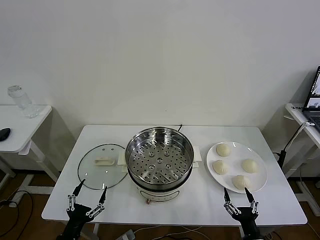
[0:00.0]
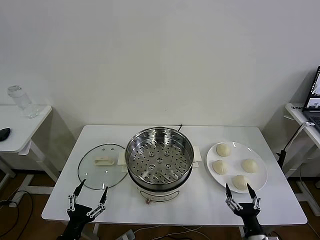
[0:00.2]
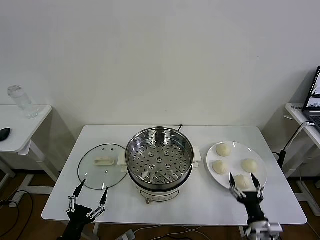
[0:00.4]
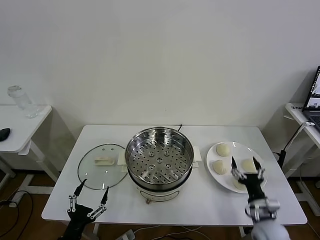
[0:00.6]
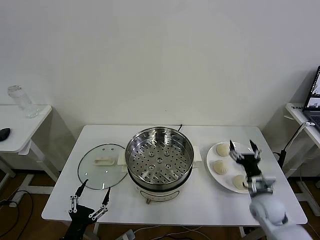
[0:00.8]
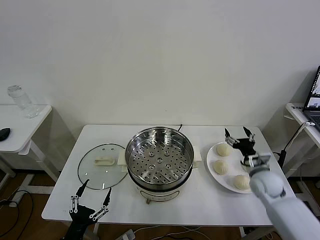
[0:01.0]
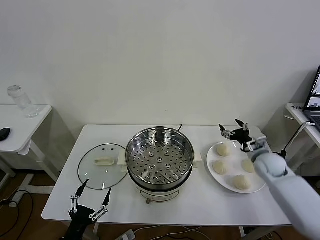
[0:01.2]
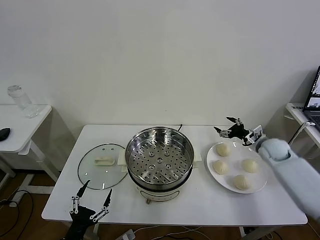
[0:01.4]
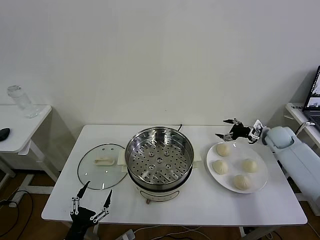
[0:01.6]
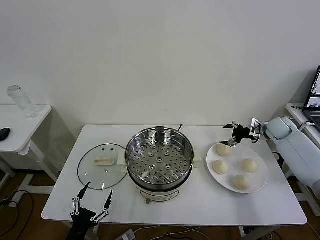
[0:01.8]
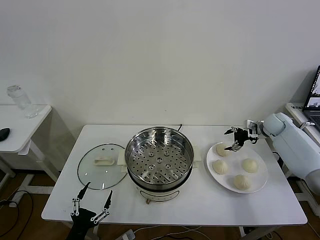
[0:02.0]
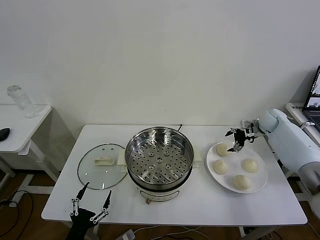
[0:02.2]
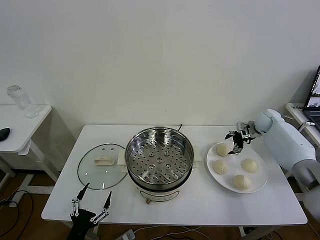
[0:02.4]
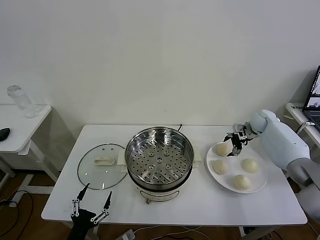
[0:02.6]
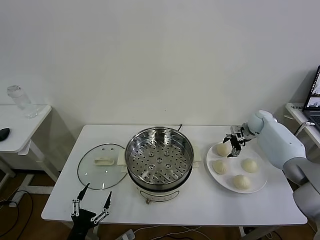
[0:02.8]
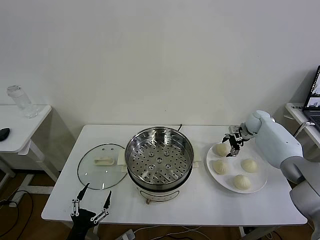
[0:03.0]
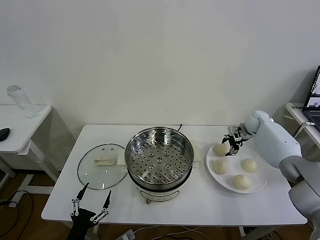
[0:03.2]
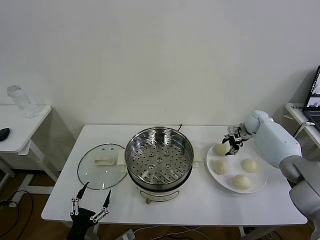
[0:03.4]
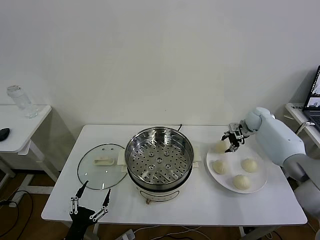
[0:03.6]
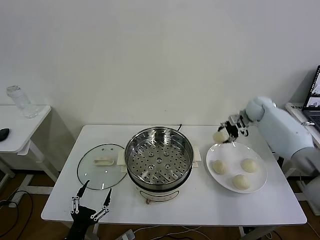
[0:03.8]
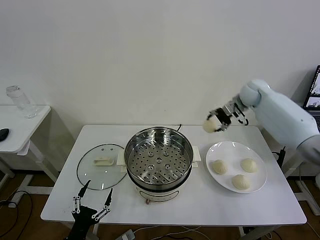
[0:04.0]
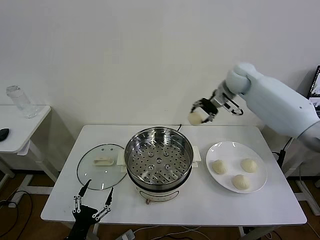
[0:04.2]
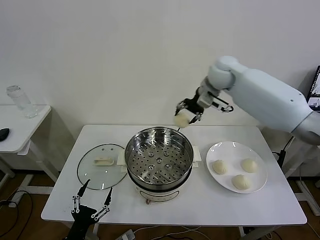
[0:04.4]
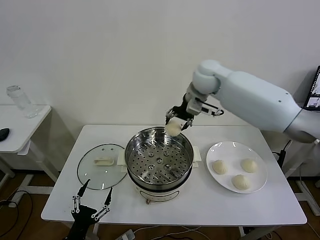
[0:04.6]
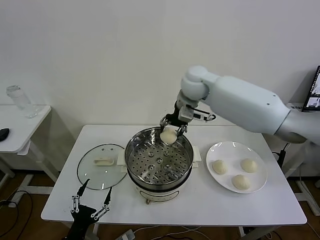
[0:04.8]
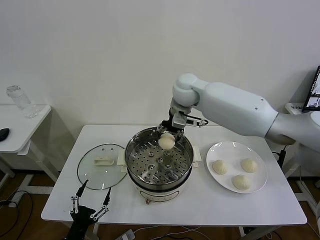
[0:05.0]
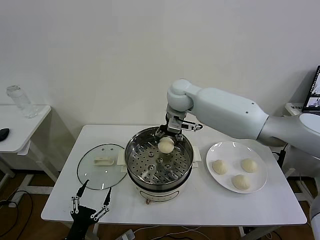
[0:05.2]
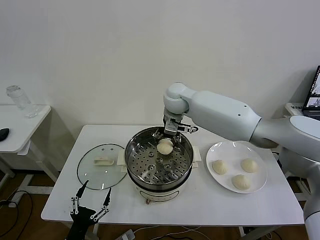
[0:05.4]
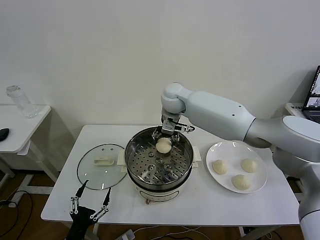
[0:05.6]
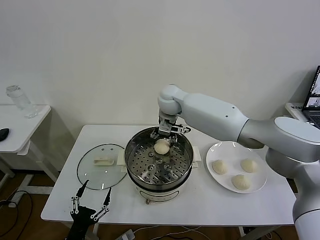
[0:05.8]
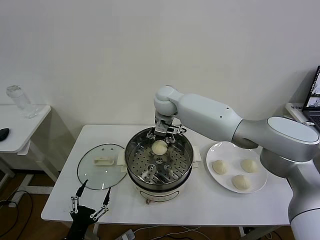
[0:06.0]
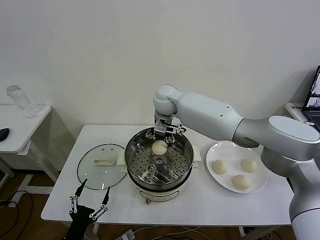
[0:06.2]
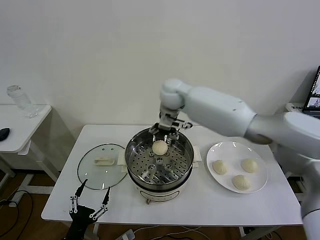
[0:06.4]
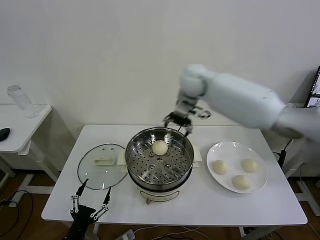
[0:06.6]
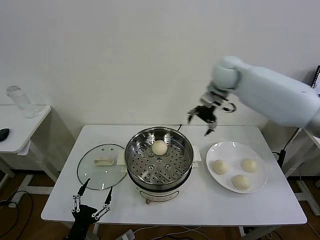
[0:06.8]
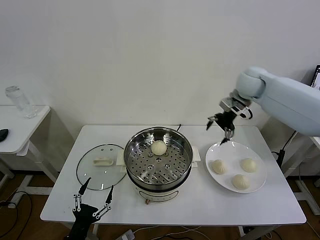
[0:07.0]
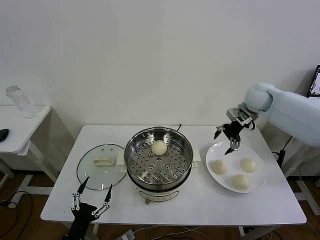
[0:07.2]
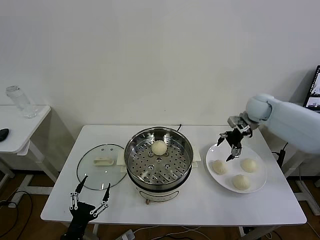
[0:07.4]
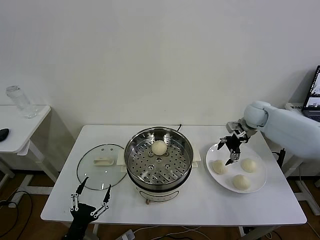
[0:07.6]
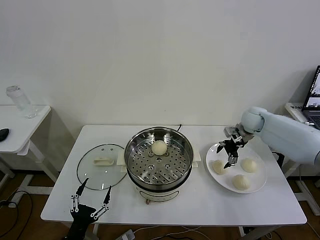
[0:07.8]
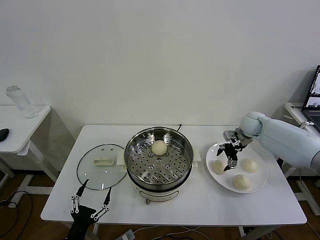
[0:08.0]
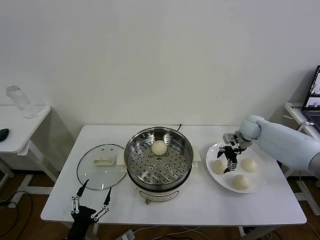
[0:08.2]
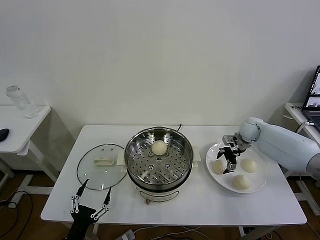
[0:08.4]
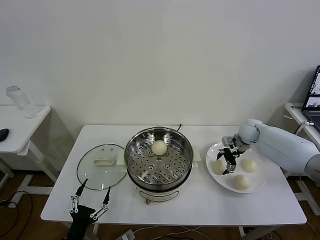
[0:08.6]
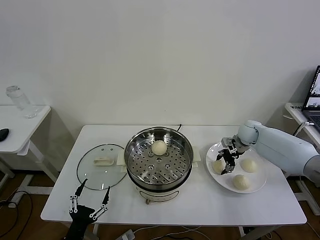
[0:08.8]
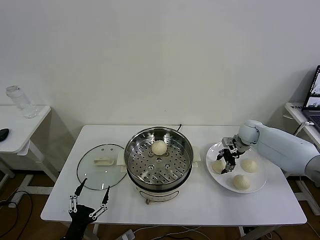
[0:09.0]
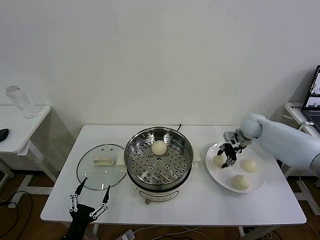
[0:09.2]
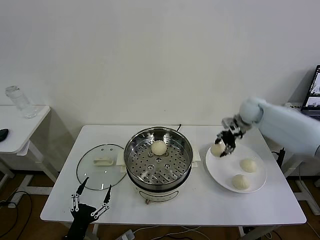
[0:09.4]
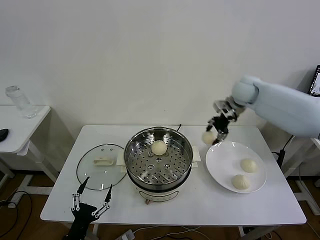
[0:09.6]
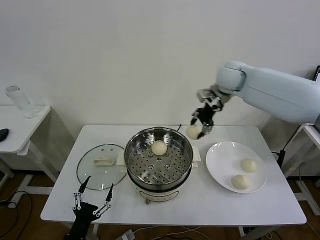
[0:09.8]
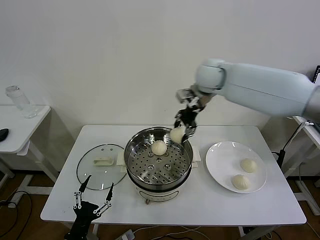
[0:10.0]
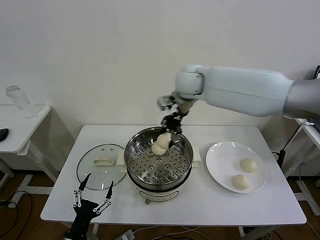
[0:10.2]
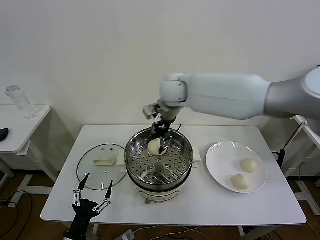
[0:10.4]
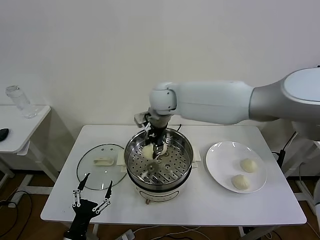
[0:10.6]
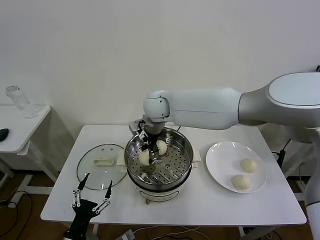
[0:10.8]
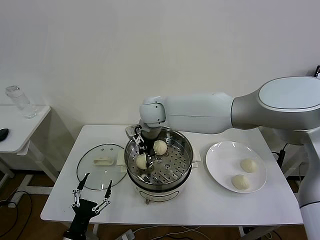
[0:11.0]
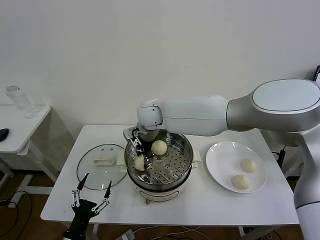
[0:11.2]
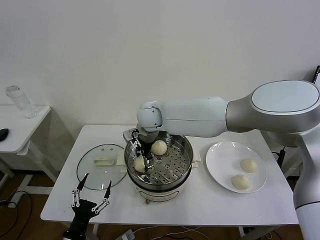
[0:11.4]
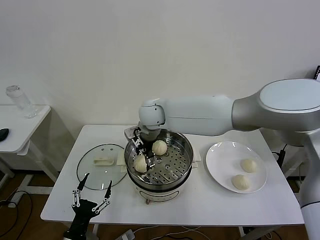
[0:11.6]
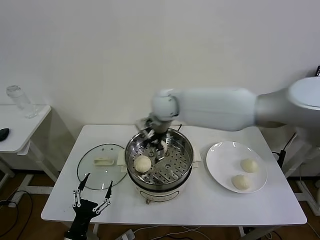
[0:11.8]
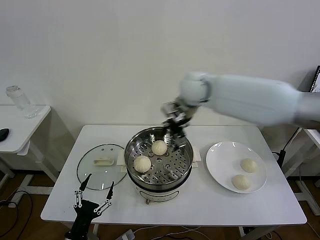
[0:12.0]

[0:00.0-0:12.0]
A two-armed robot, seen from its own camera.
Task of the whole recording: take steamed baozi put them in steamer then cover it.
Step, 0:00.0 to 0:03.4: Grasp the baozi in the plate with right gripper.
Step, 0:03.6 to 0:06.4: Place the baozi on the steamer with right gripper.
Step, 0:06.6 to 0:08.8: Grasp the baozi in the plate with right gripper.
0:01.6 to 0:03.0: The right gripper is displaced forward and to the left by approximately 10 cm.
0:03.0 to 0:04.4: The right gripper heads to the left and upward, covering approximately 35 cm.
0:04.4 to 0:06.0: The right gripper shifts approximately 15 cm to the left and downward, and opens its fingers.
0:06.0 to 0:07.6: The right gripper heads to the right, covering some 35 cm.
0:07.6 to 0:09.0: The right gripper shifts about 5 cm downward, and closes its fingers.
0:09.0 to 0:10.4: The right gripper moves to the left and upward, some 40 cm.
0:10.4 to 0:12.0: The right gripper shifts approximately 15 cm to the right, and opens.

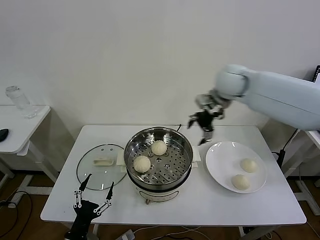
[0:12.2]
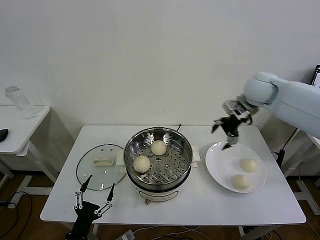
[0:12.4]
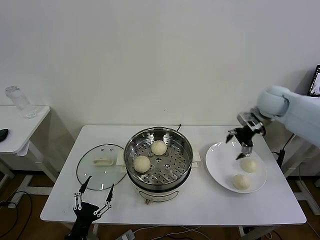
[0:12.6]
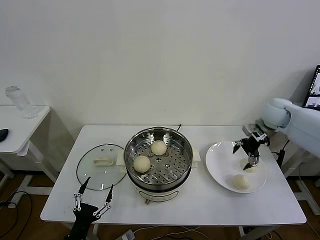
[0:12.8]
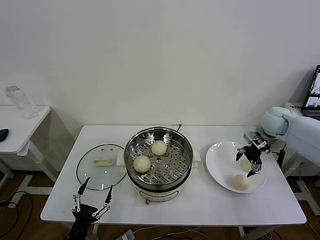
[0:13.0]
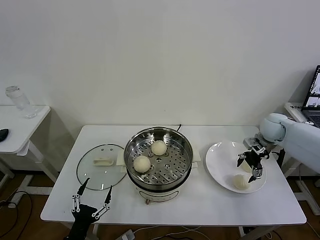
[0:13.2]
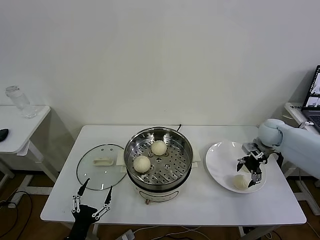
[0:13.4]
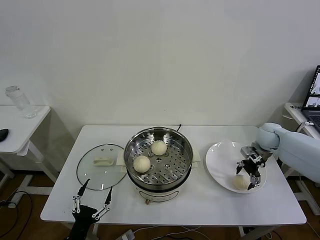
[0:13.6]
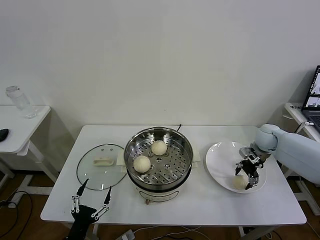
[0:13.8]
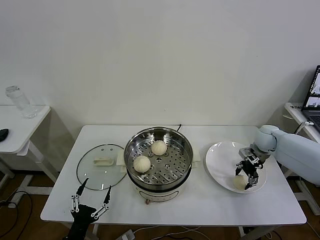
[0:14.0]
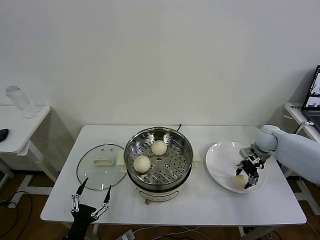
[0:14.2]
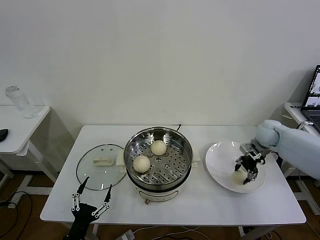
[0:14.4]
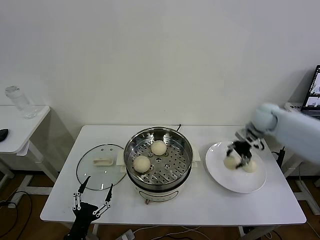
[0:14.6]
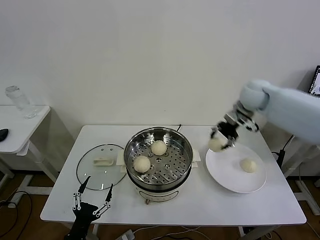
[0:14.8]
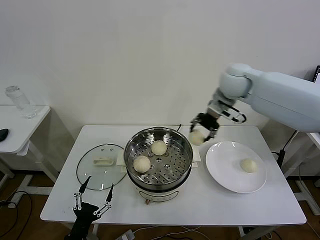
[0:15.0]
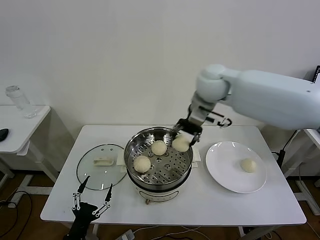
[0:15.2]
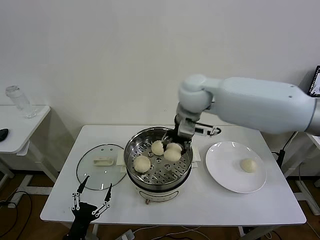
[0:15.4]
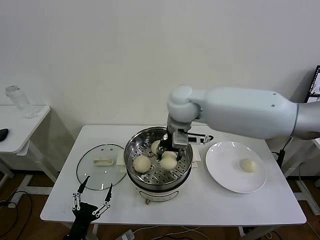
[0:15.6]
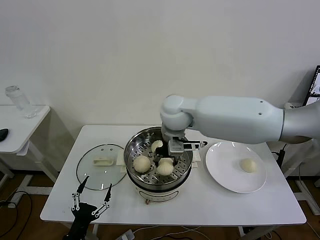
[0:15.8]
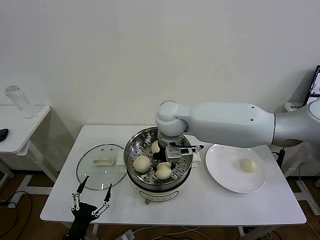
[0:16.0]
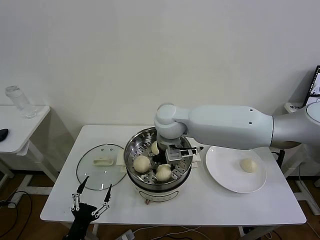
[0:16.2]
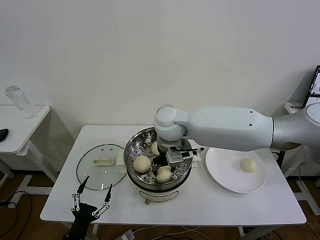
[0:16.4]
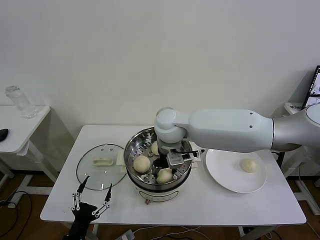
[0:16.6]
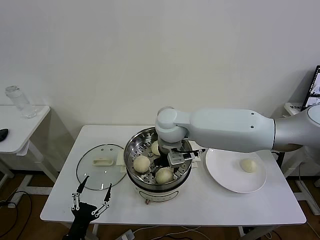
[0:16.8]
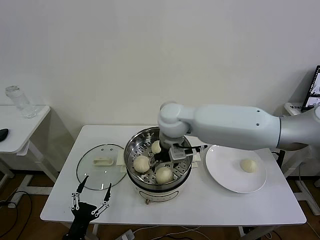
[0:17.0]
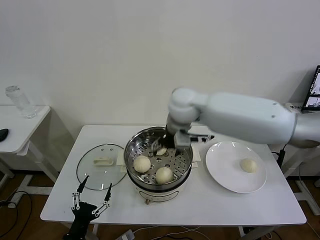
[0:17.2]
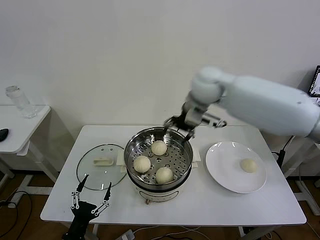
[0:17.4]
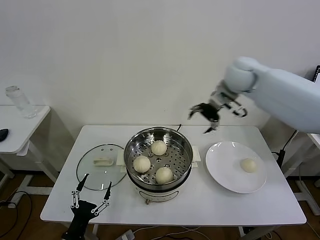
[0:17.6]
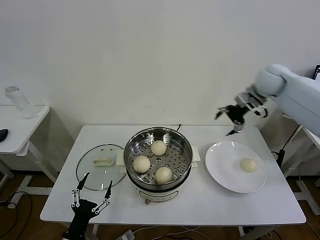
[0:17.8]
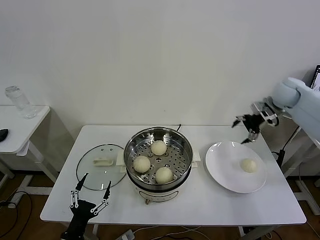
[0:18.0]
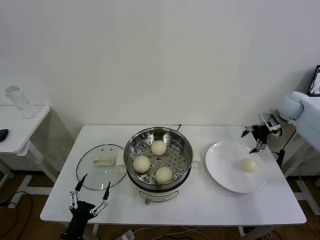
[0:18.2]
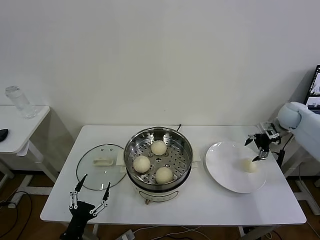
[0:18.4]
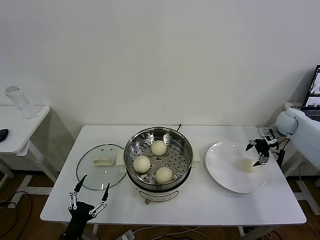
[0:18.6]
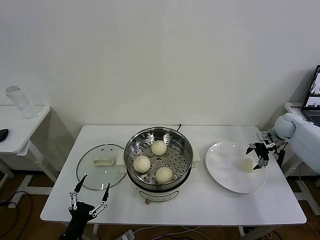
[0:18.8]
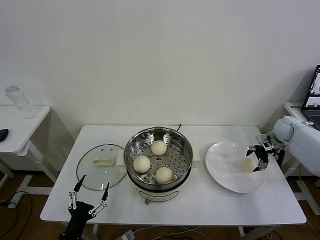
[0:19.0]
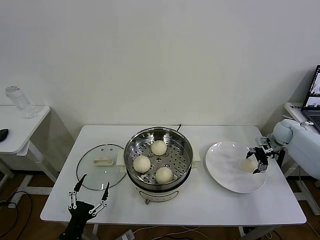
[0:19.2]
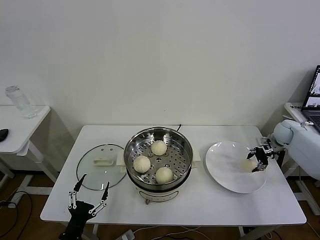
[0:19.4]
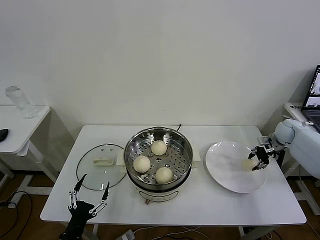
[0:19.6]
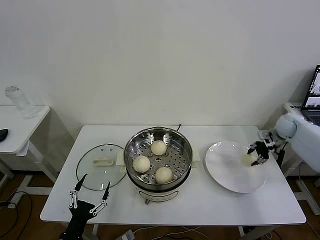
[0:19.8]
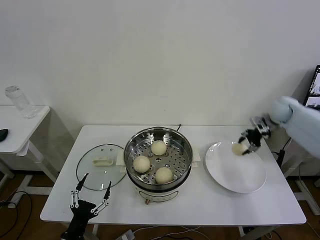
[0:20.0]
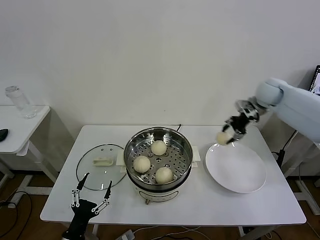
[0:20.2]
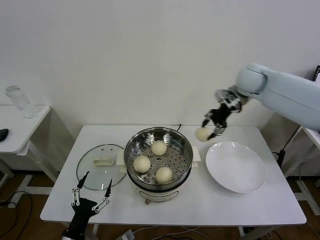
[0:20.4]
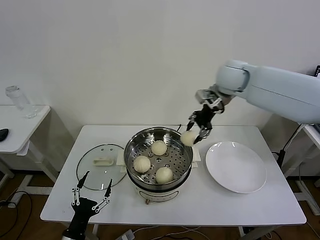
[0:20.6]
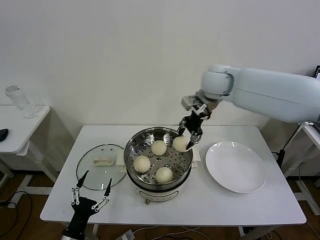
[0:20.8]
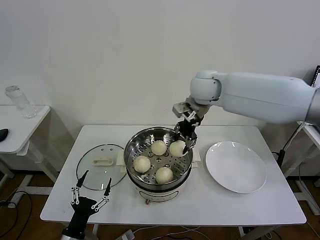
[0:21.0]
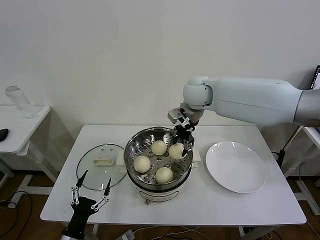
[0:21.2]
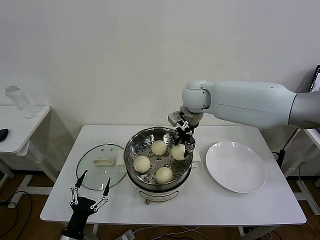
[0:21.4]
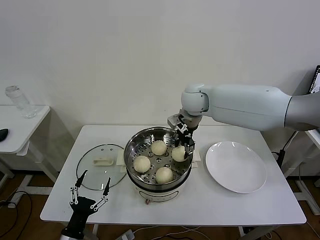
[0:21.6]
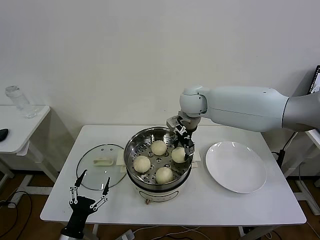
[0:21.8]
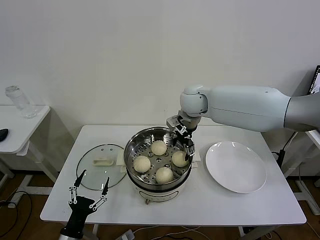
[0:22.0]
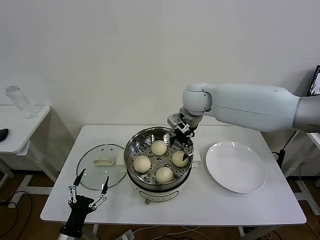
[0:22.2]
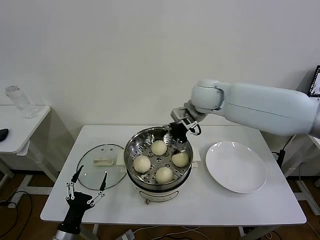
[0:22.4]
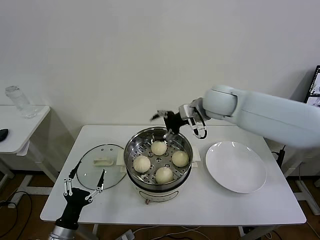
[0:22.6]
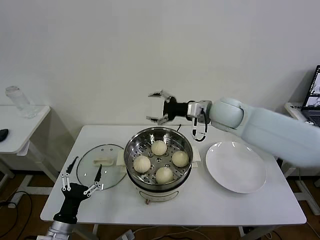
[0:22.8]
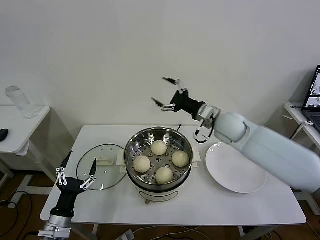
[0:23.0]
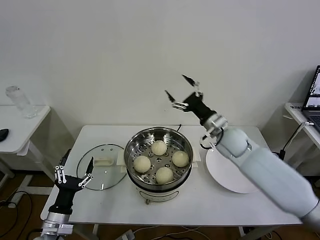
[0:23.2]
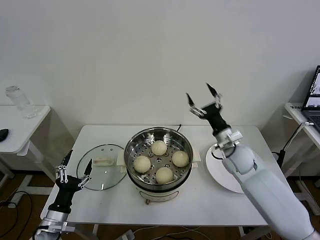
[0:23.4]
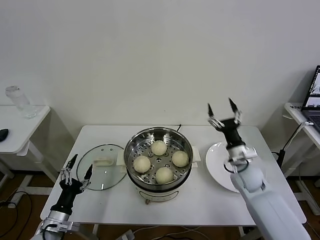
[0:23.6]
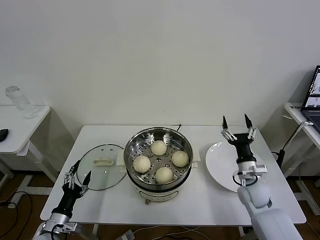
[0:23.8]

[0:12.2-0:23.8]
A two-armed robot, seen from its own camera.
Task of the whole recording: take steamed baozi put them in steamer then cover it.
Step, 0:12.2 to 0:14.2: Grasp the baozi in the plate with right gripper.
Step, 0:14.4 to 0:17.2: Place the baozi on the steamer with right gripper.
Step, 0:17.4 to 0:19.6: Grasp the baozi in the plate with right gripper.
Step, 0:19.8 to 0:22.4: Place the baozi on the steamer with right gripper.
0:12.2 to 0:13.6: The right gripper travels downward and to the right by some 25 cm.
0:13.6 to 0:15.0: The right gripper moves upward and to the left, approximately 30 cm, and closes its fingers.
0:15.0 to 0:16.6: The right gripper goes roughly 20 cm to the left, downward and backward.
0:16.6 to 0:18.0: The right gripper is displaced to the right by about 40 cm, and opens.
0:18.0 to 0:19.4: The right gripper is displaced downward and to the right by roughly 15 cm, and closes its fingers.
0:19.4 to 0:21.0: The right gripper moves to the left and upward, roughly 40 cm.
0:21.0 to 0:22.4: The right gripper opens its fingers.
0:22.4 to 0:23.8: The left gripper is displaced to the left and forward by approximately 10 cm; the right gripper shifts roughly 40 cm downward, to the right and backward.
